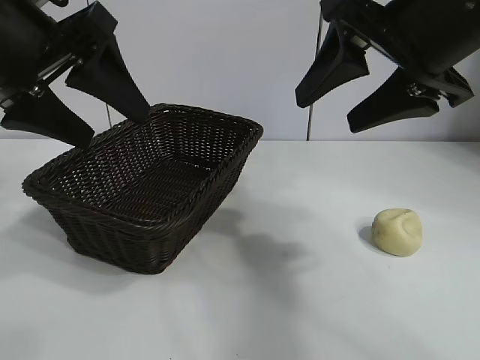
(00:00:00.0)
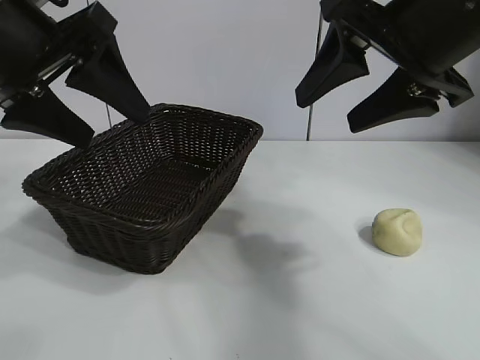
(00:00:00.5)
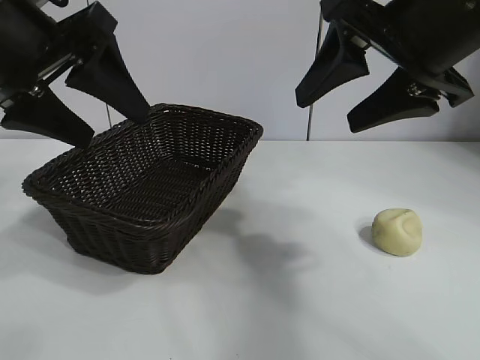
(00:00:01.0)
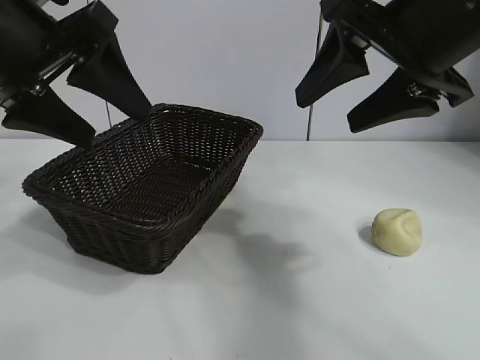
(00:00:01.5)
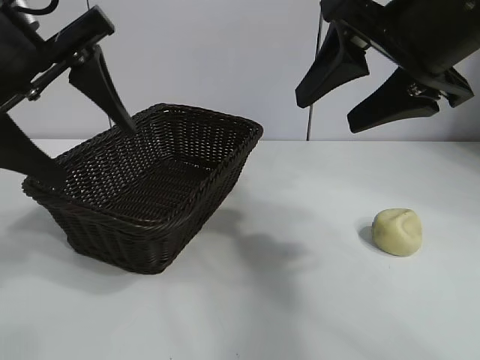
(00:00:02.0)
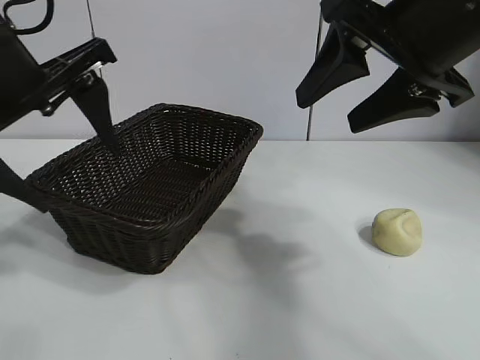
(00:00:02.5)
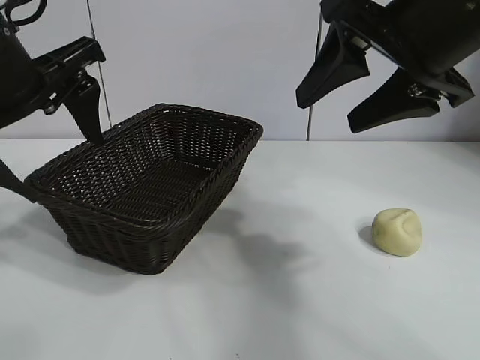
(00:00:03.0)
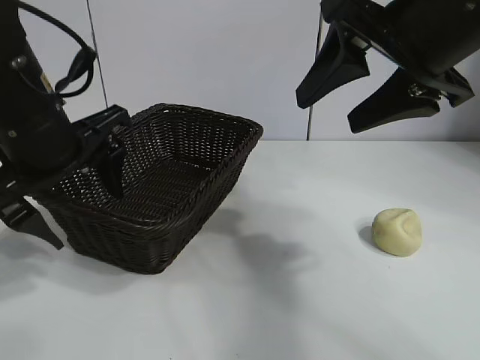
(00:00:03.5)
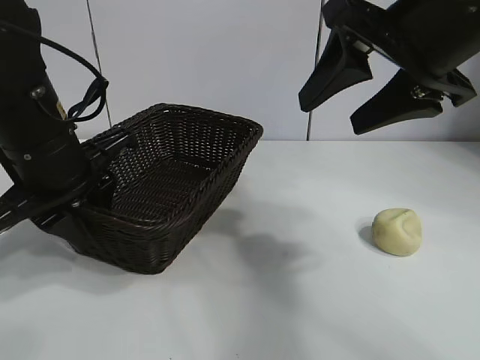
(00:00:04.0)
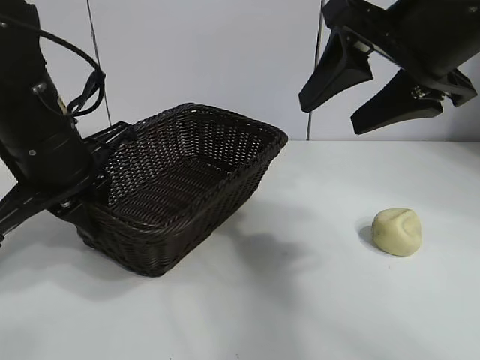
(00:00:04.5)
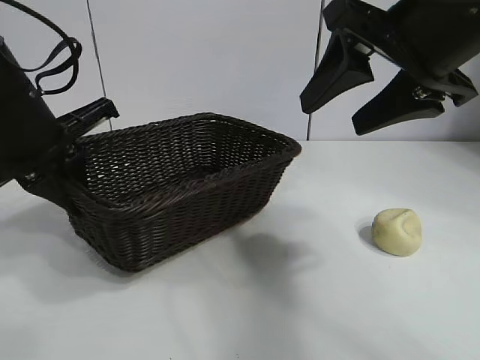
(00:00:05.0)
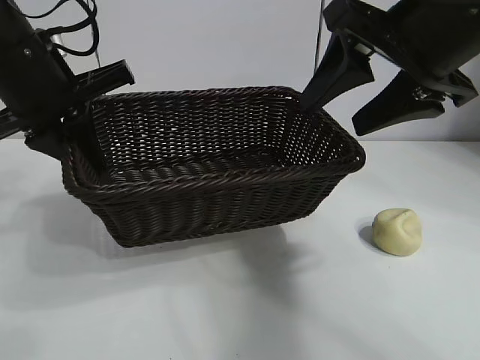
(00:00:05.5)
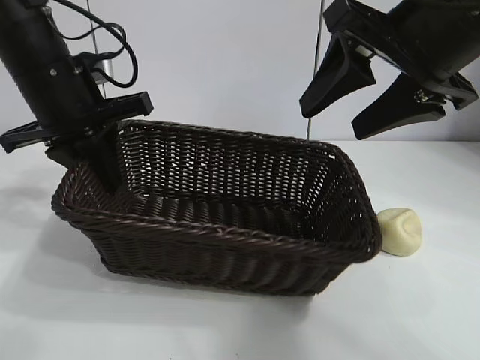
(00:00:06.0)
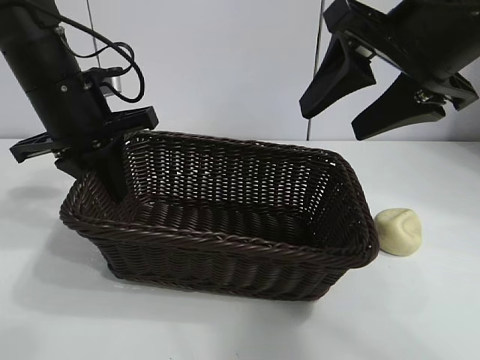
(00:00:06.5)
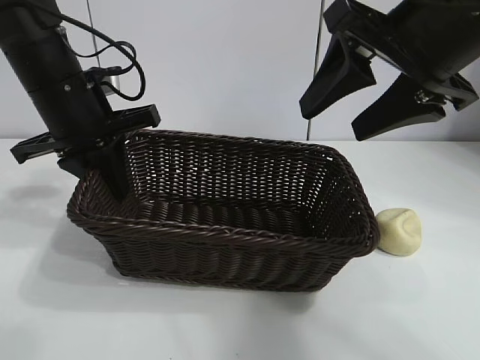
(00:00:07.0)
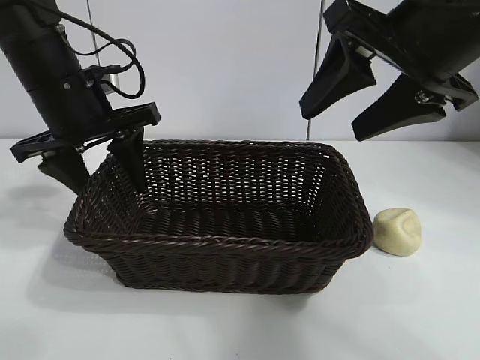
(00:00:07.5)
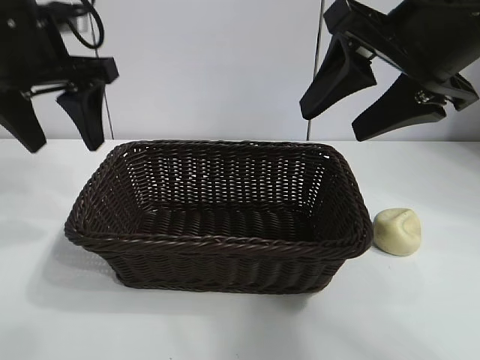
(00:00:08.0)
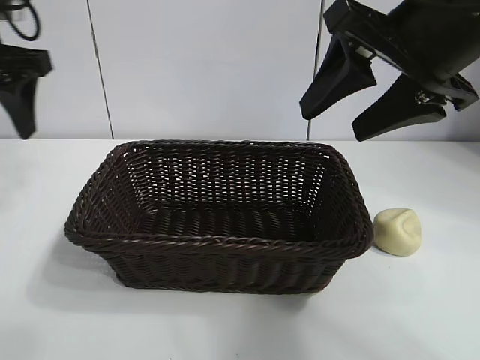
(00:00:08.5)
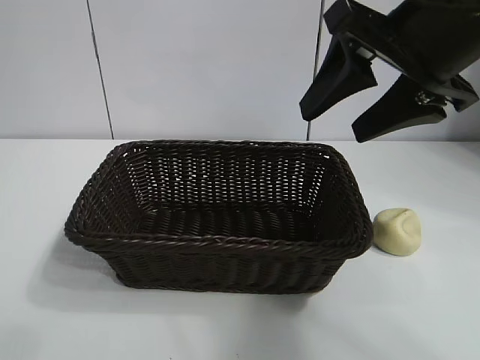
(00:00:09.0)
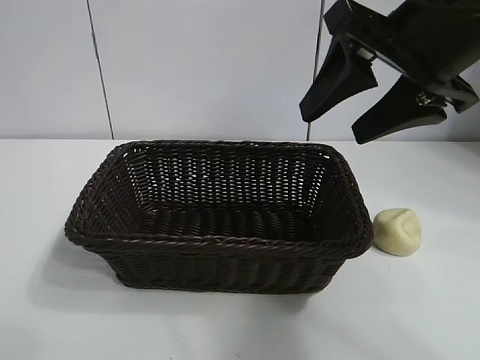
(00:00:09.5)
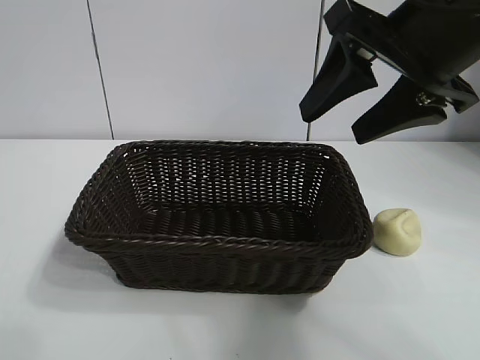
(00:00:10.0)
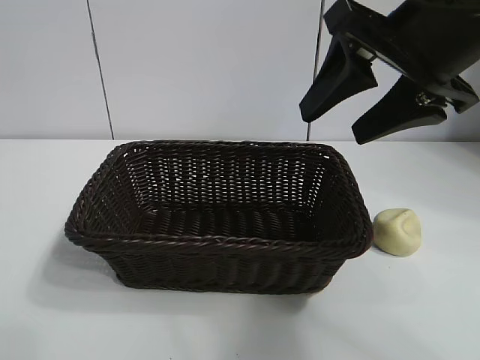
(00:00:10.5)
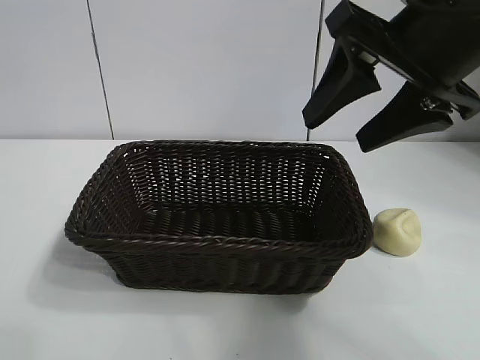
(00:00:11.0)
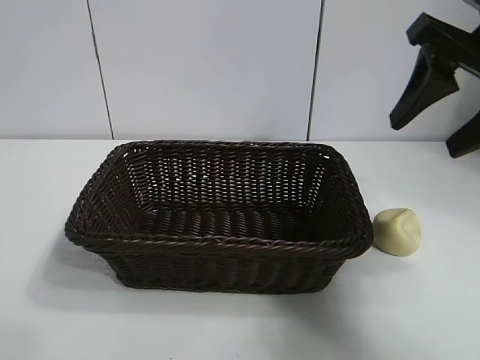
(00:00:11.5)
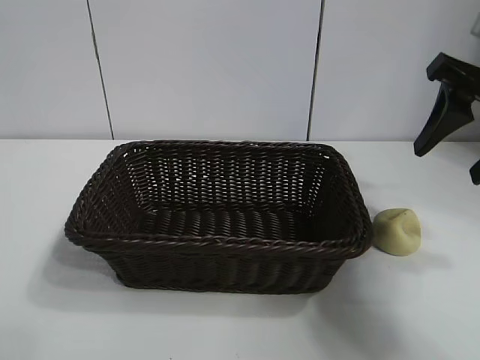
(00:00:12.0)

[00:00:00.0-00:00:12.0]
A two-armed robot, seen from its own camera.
Task of the whole recording: pick up the egg yolk pastry and put it into the basket.
Step, 00:00:01.5 to 00:00:04.0: Grasp the basket with left gripper.
Step, 00:00:04.5 to 00:00:07.5: Place the basket in the center of view with left gripper.

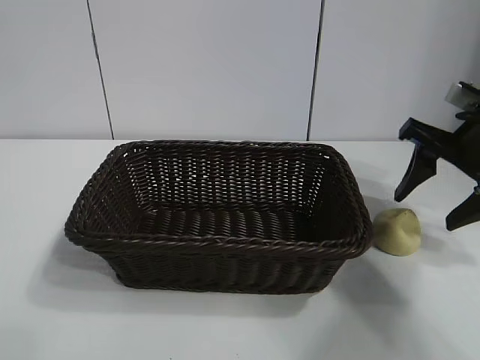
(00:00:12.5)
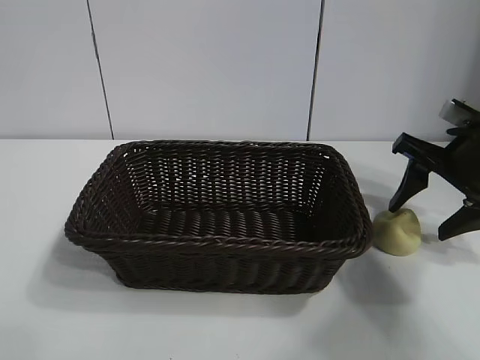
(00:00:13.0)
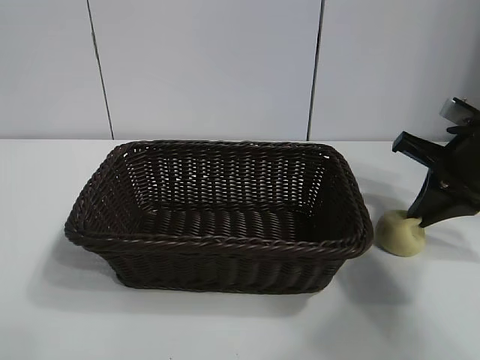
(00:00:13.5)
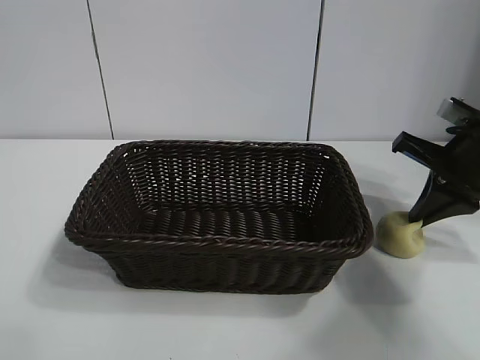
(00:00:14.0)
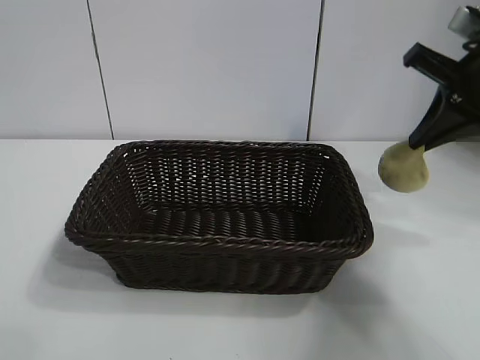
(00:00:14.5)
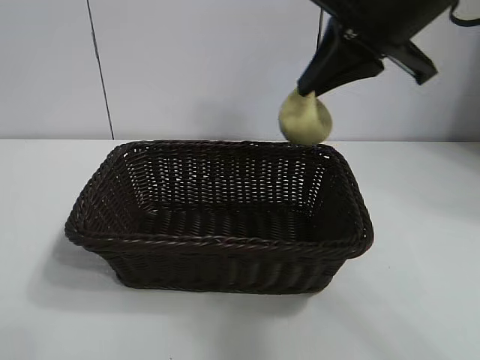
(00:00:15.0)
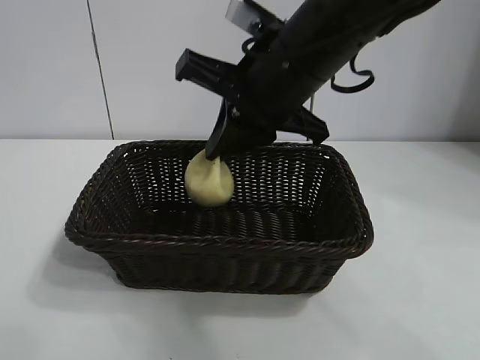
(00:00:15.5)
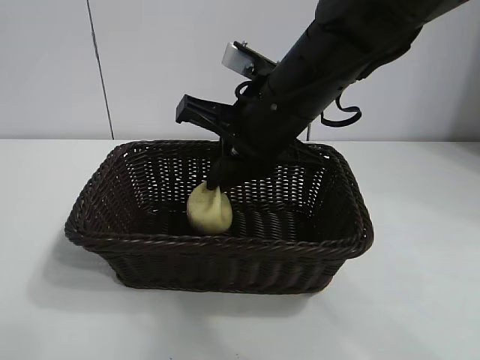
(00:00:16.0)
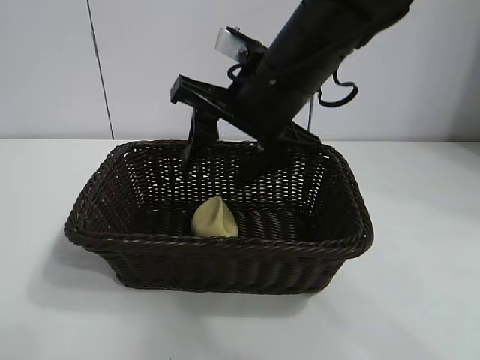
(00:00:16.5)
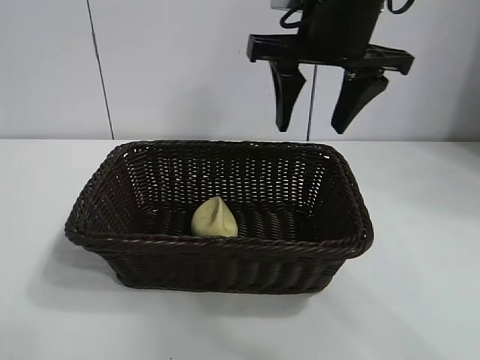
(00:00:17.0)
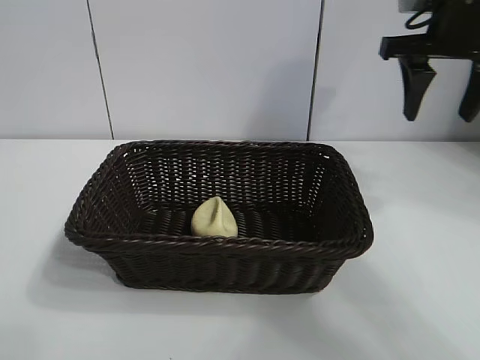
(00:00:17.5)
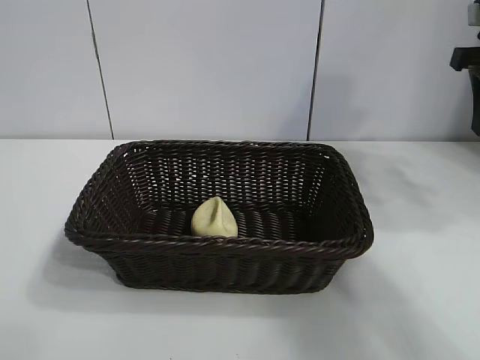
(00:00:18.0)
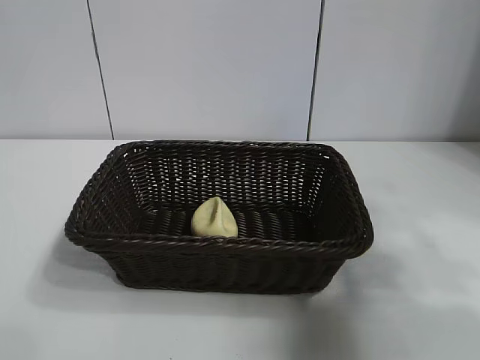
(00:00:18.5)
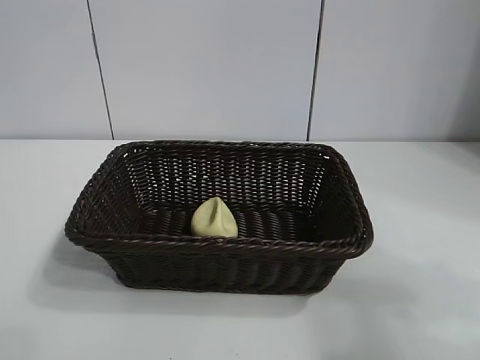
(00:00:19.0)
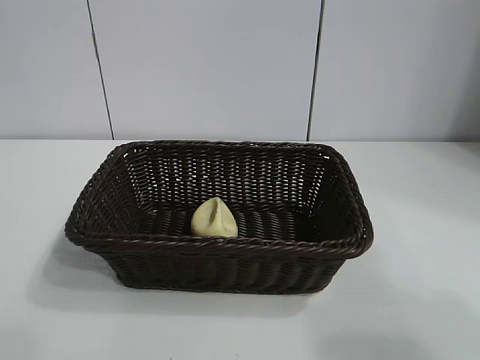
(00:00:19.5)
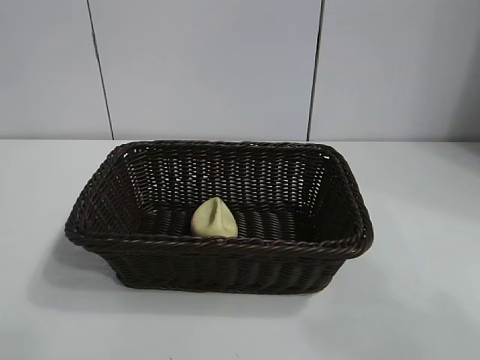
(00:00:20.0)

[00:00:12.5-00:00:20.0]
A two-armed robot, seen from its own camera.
Task of the whole recording: pick up the egg yolk pastry and put it into the basket.
Step, 00:00:14.0 to 00:00:16.0: Place the egg yolk pastry in the basket with right gripper.
